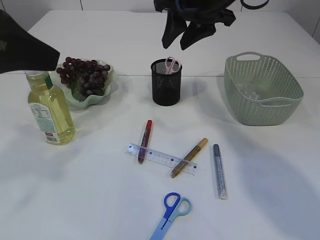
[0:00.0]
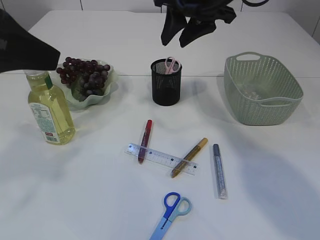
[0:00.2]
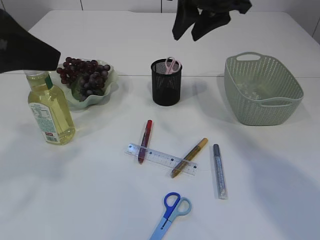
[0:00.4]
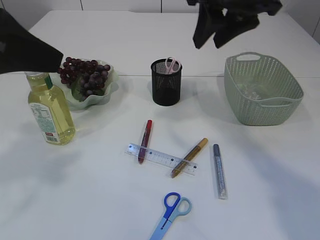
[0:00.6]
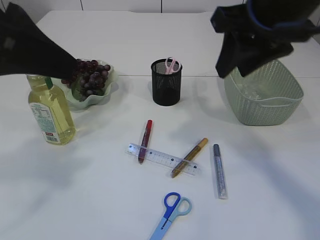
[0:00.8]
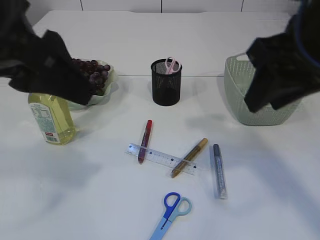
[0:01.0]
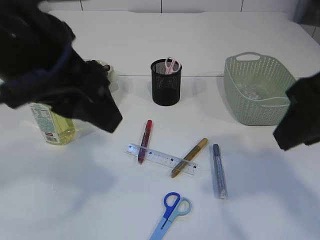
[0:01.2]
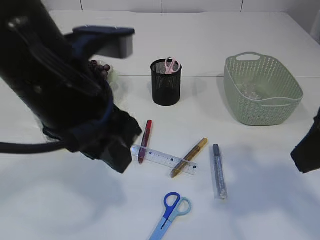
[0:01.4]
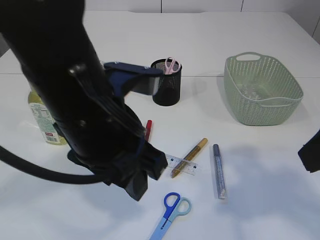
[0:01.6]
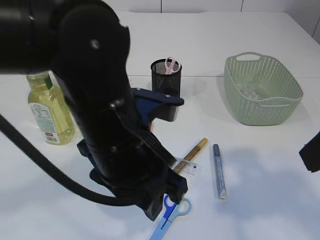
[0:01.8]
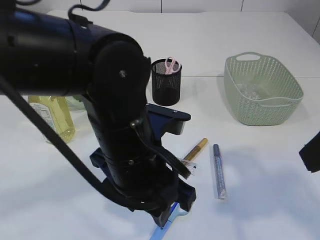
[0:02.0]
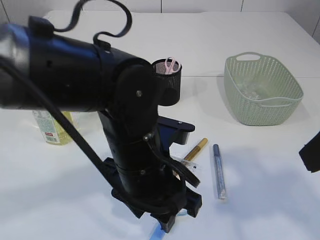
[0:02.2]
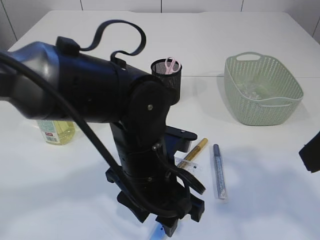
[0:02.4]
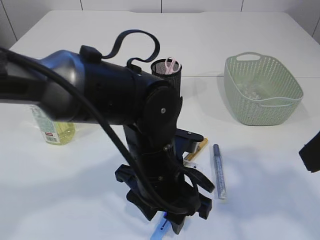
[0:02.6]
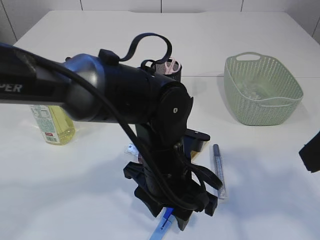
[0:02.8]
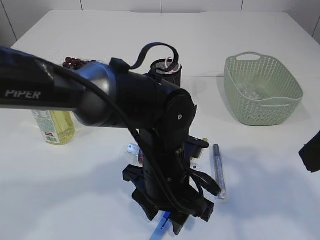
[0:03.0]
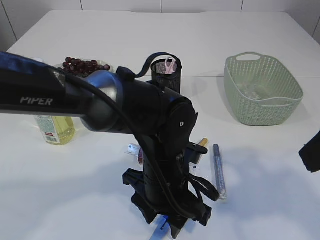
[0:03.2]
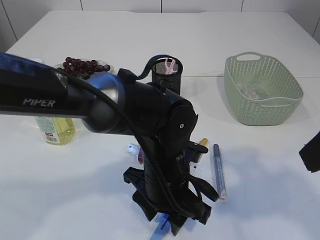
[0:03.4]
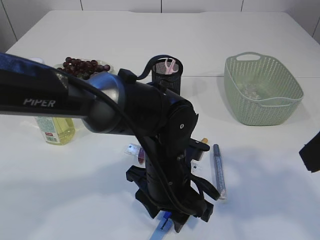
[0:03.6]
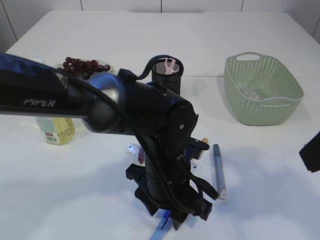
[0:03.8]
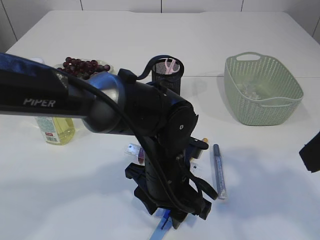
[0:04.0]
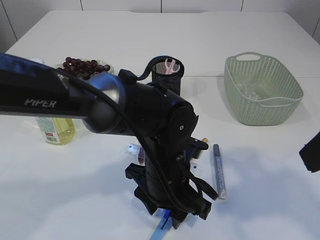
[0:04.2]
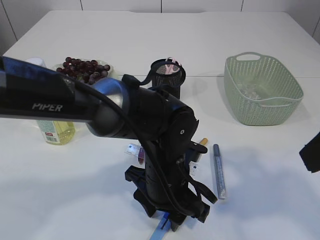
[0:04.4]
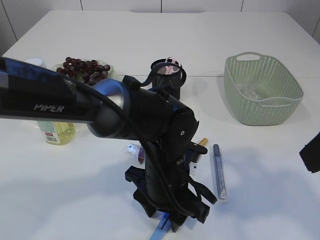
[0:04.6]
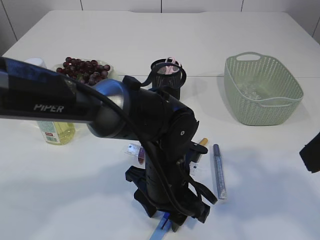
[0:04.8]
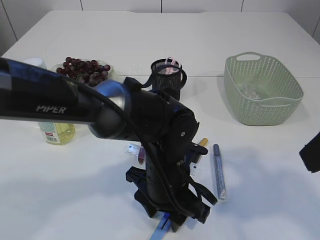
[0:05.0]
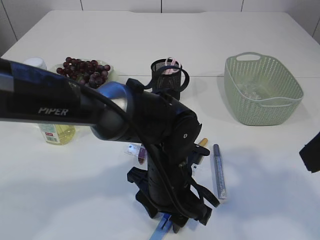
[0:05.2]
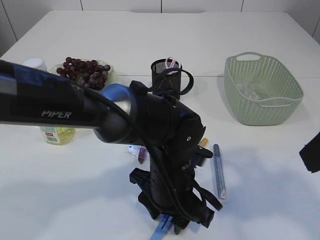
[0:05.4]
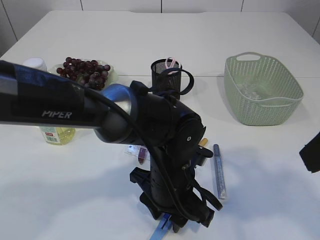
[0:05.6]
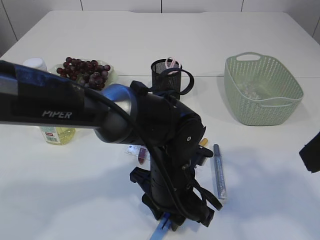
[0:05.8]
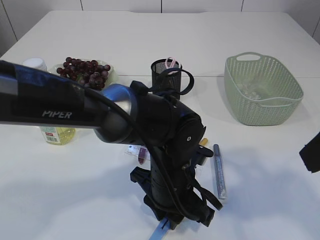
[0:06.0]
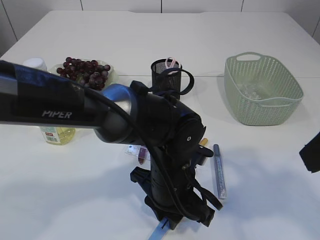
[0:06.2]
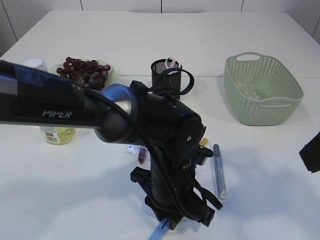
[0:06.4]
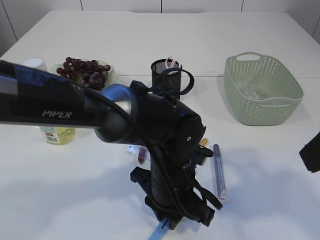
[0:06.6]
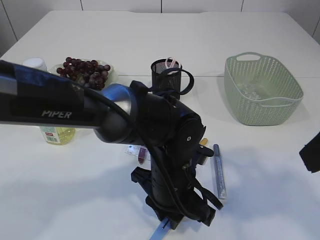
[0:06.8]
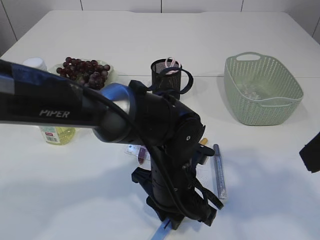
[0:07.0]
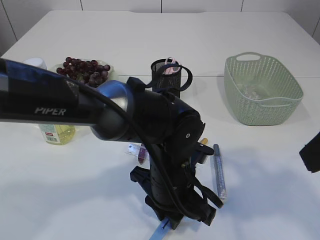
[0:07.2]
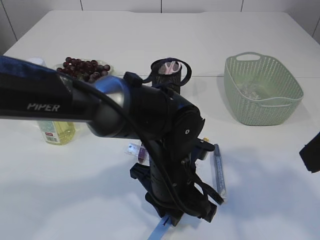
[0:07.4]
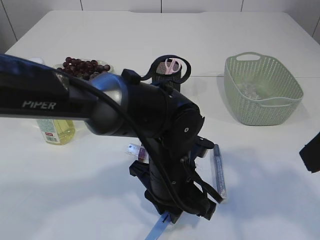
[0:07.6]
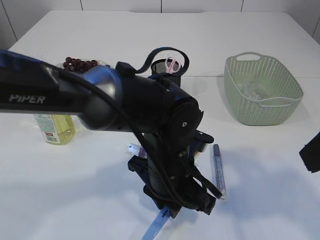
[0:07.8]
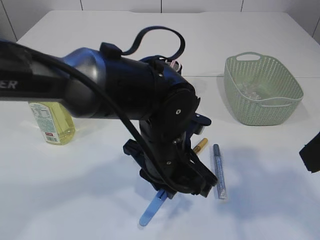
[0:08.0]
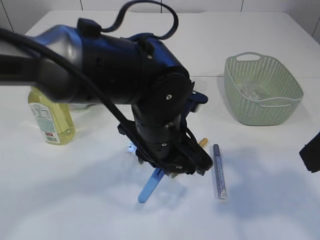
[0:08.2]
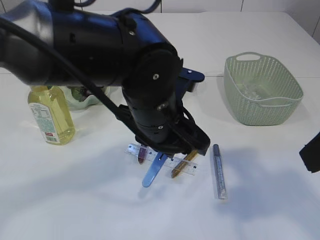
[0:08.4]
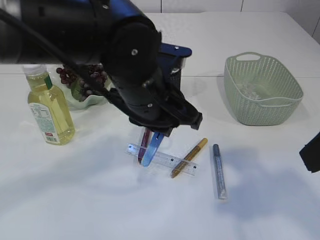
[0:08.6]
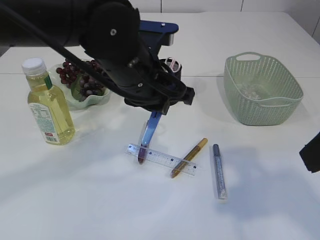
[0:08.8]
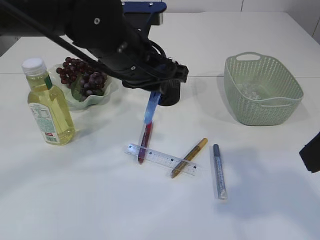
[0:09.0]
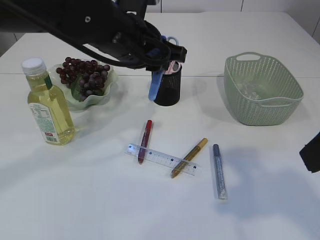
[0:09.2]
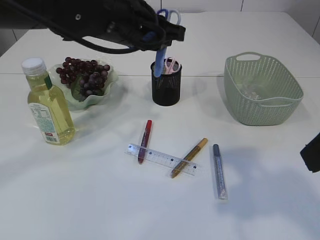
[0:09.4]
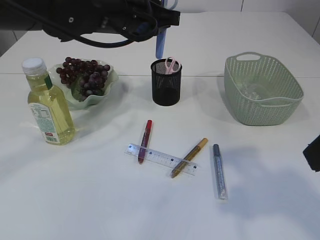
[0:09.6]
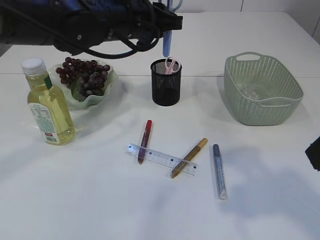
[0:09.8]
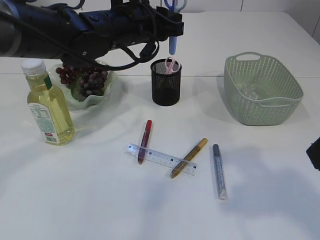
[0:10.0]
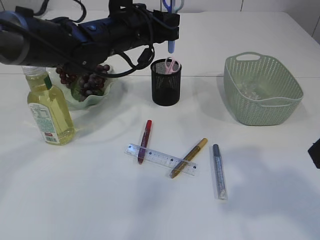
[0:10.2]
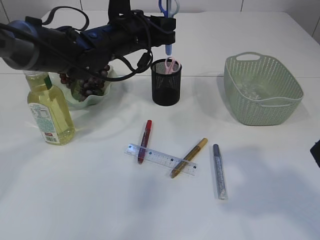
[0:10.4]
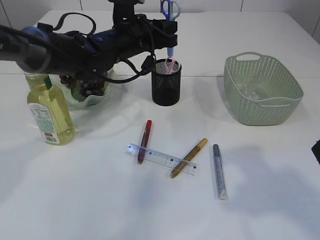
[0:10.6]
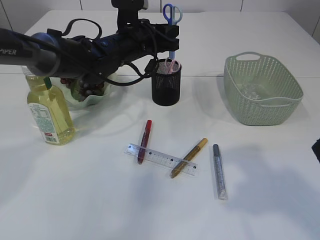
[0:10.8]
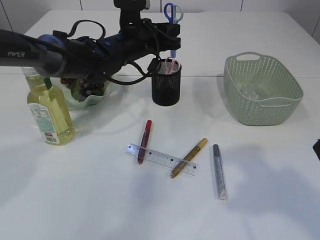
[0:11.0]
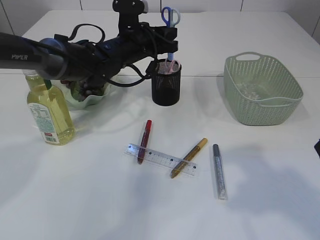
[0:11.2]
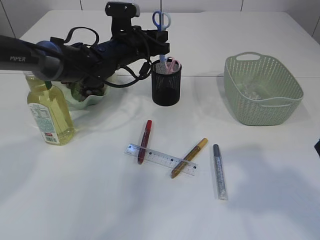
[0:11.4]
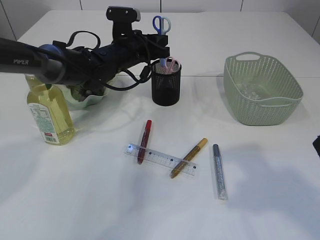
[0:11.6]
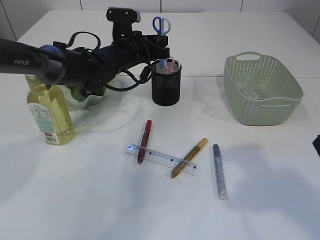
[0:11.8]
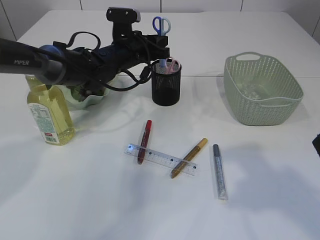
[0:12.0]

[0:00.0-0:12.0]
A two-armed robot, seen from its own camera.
Step, 0:00.0 to 0:08.4: pick up the blue scissors.
0:00.0 to 0:01.6: The left gripper shifts some 15 cm to the right and downward. The right gripper is displaced backward by roughly 25 cm.
0:01.6 to 0:03.0: The left gripper heads downward and to the right, covering some 15 cm.
0:03.0 to 0:04.4: The grippers make only small movements.
0:04.4 to 0:06.0: Neither gripper changes place.
0:06.0 to 0:07.6: There are only small adjustments of the grippers.
0:07.6 to 0:09.0: The left gripper is displaced upward, forward and to the left by roughly 15 cm.
0:09.0 to 0:10.4: The left gripper is displaced forward by approximately 10 cm.
0:10.4 to 0:12.0: The left gripper goes about 10 cm downward and forward.

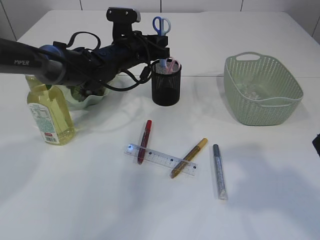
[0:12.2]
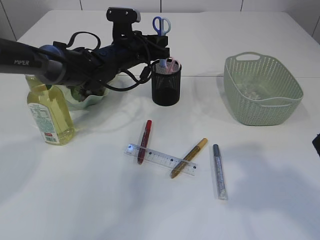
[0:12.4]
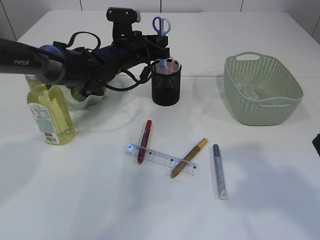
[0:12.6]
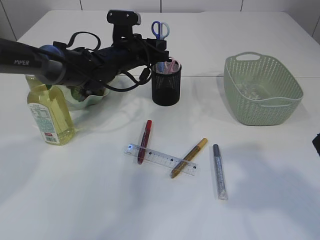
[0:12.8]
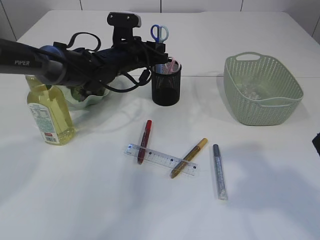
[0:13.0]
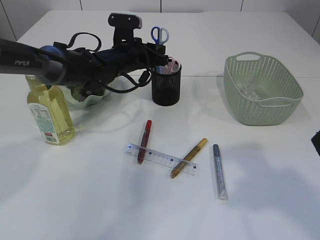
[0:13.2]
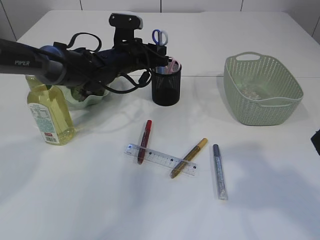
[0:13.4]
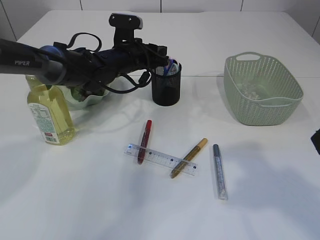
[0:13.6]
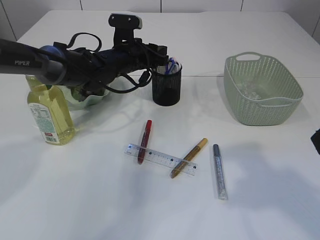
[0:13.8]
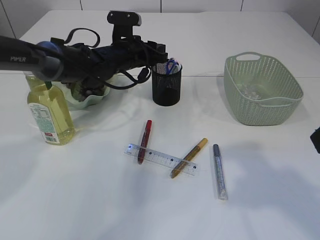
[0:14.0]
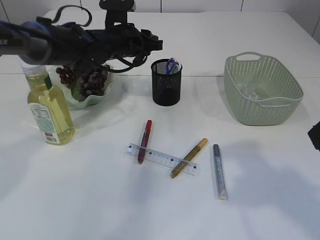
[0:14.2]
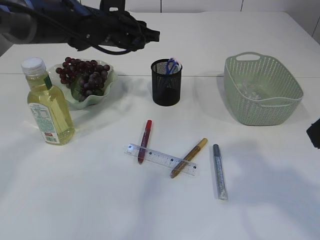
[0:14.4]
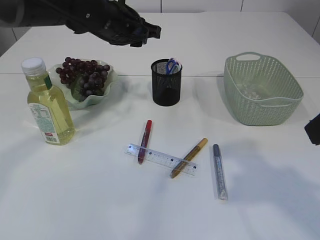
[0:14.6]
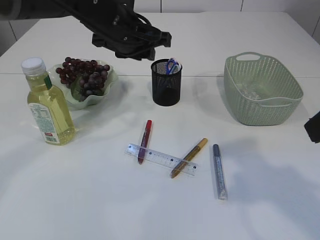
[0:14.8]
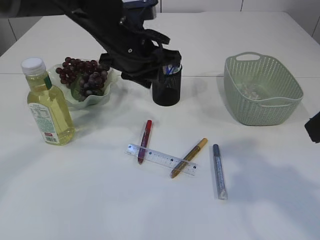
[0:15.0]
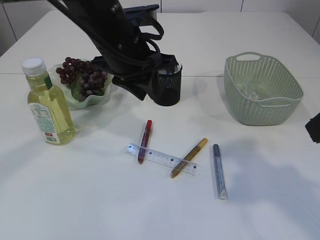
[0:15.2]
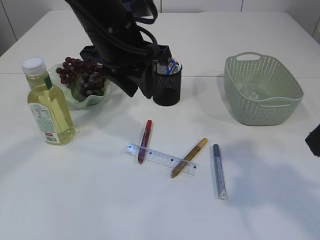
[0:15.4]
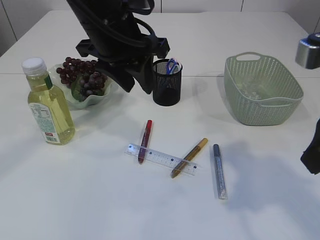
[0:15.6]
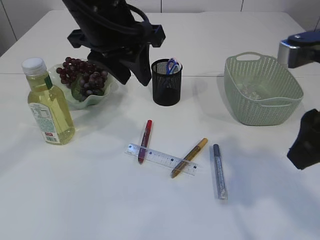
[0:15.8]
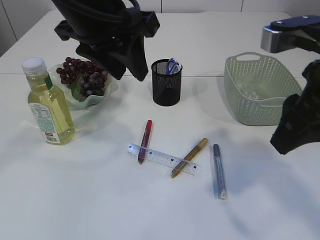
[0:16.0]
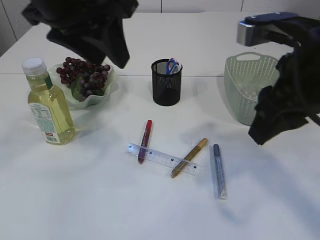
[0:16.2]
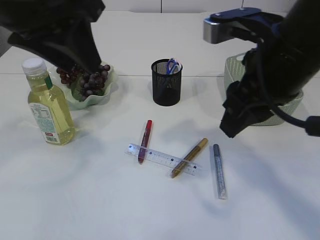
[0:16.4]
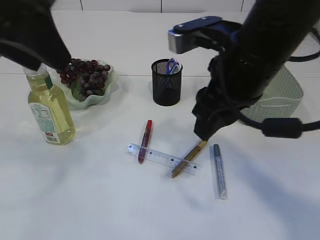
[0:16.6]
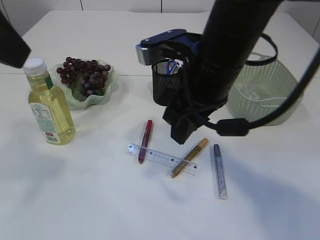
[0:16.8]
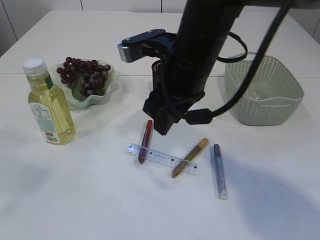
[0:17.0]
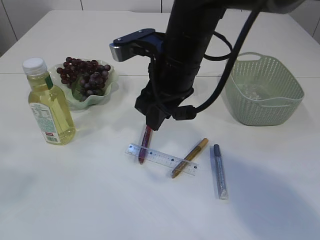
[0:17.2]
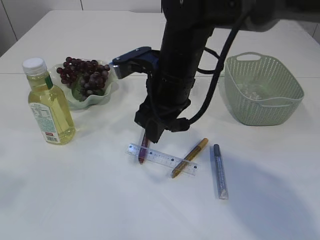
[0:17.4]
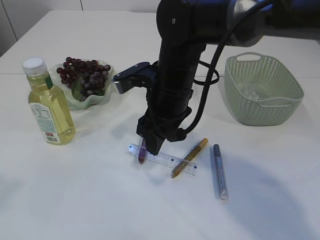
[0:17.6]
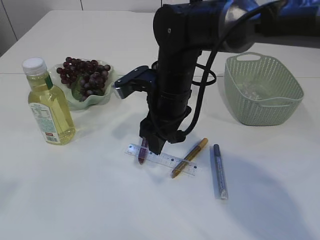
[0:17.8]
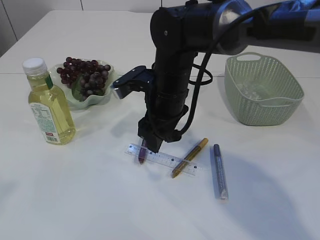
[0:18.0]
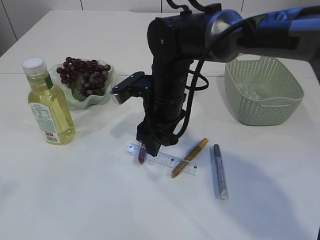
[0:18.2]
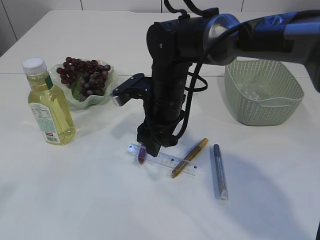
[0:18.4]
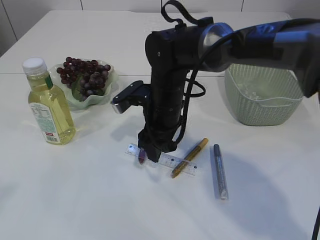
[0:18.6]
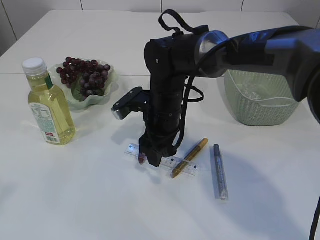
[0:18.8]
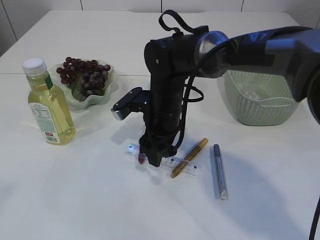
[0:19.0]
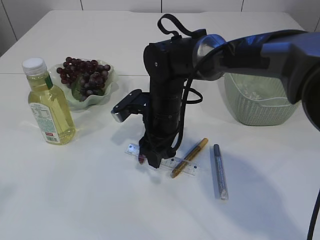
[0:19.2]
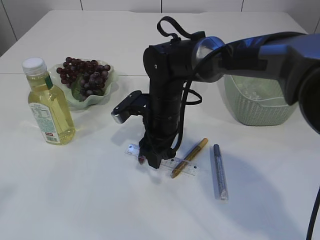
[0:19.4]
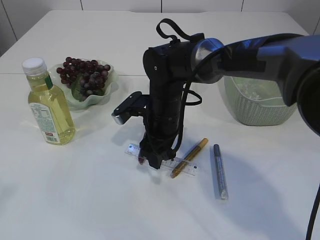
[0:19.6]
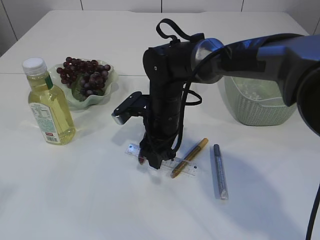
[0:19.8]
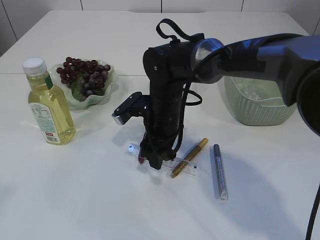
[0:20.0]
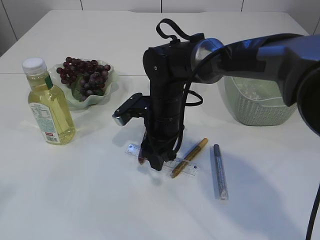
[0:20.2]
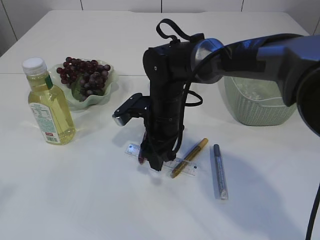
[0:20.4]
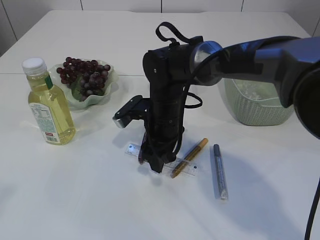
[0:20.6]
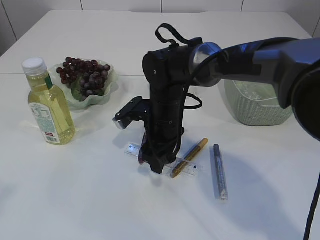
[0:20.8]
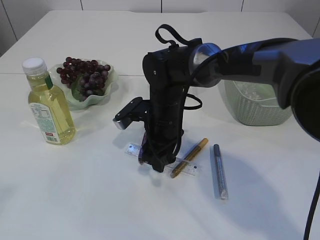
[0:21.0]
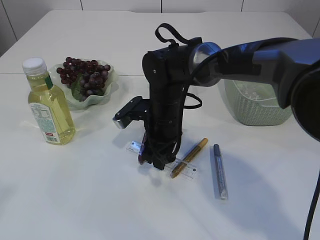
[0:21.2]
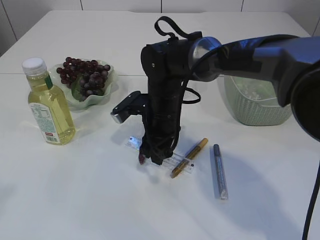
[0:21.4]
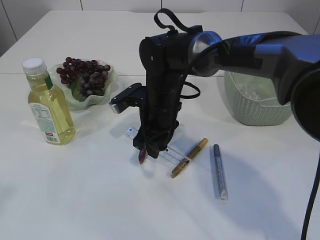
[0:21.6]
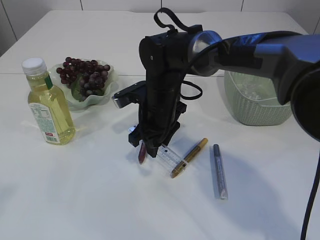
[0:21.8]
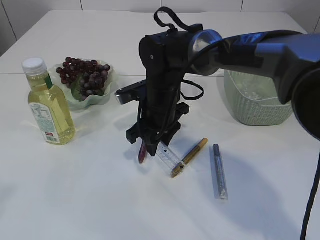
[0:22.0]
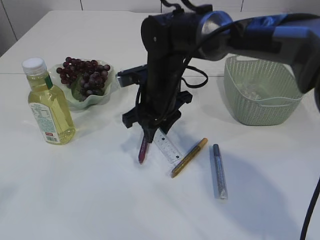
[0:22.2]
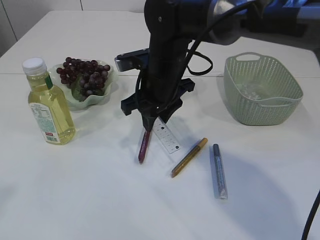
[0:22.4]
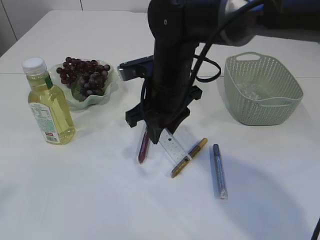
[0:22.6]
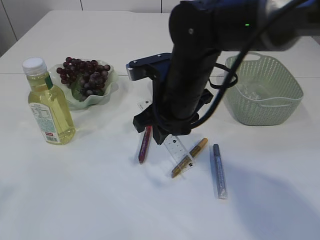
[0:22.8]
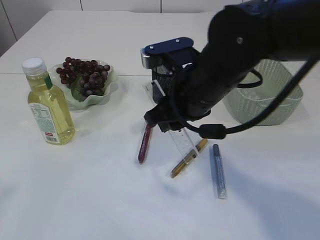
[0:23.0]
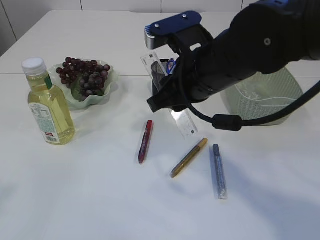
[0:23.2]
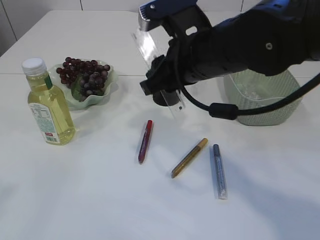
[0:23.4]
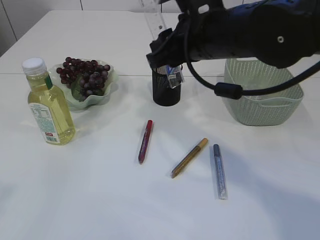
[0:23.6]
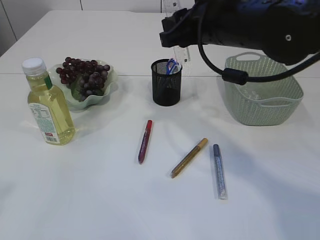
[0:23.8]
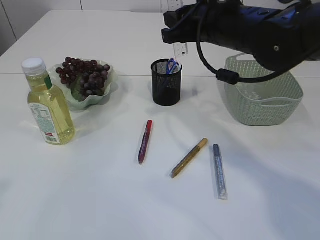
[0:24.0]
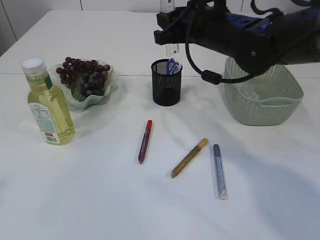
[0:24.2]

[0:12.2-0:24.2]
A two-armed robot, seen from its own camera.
Step, 0:12.2 to 0:14.4: Place the blue scissors into the pen holder.
Step, 0:14.6 to 0:22.6: pick up the ruler.
0:12.2 to 0:13.8: The grippers move only a little.
0:13.8 to 0:15.2: The left gripper moves backward and upward, approximately 15 cm.
0:15.2 to 0:16.6: The left gripper goes roughly 20 cm backward, upward and to the left, while the right gripper goes approximately 15 cm forward and to the left.
0:16.6 to 0:18.2: The right gripper moves downward, forward and to the left, approximately 20 cm, and opens. The left gripper travels backward and to the left by roughly 15 cm.
0:18.2 to 0:19.8: The grippers stay close to where they were, moving slightly.
0:19.8 to 0:21.2: The right gripper closes.
0:21.2 to 0:22.6: The right gripper goes approximately 10 cm upward.
0:22.6 to 0:24.2: The right gripper is displaced to the right and upward by roughly 10 cm.
